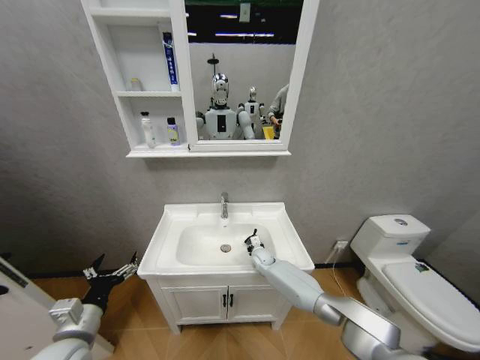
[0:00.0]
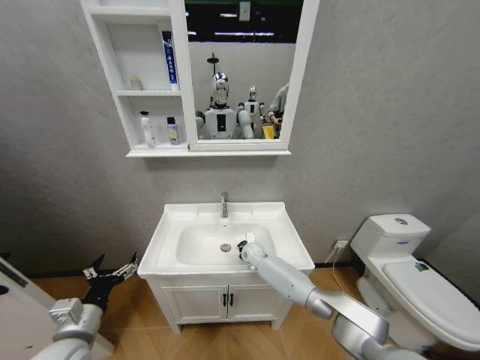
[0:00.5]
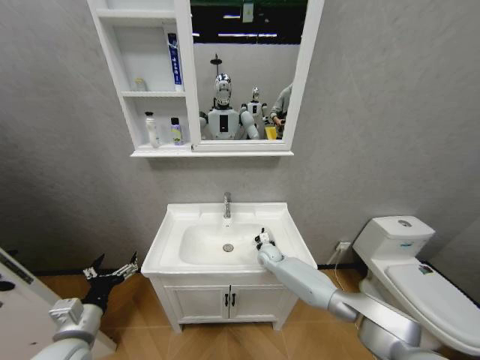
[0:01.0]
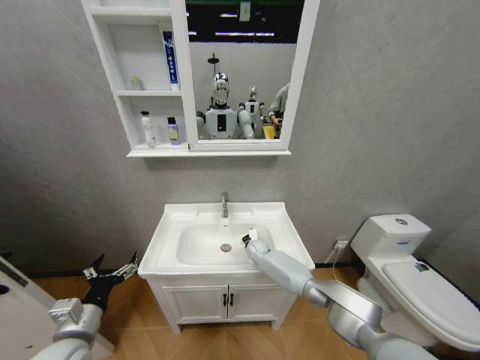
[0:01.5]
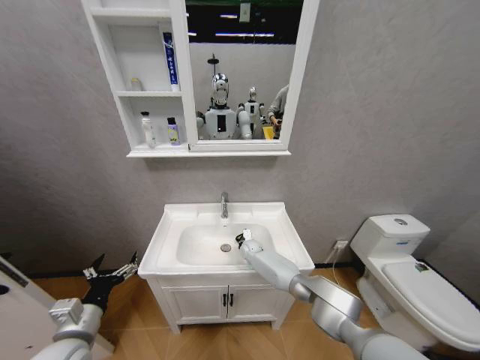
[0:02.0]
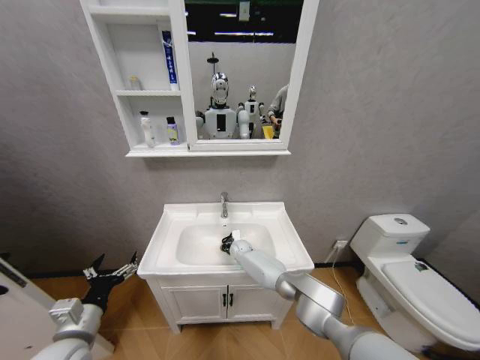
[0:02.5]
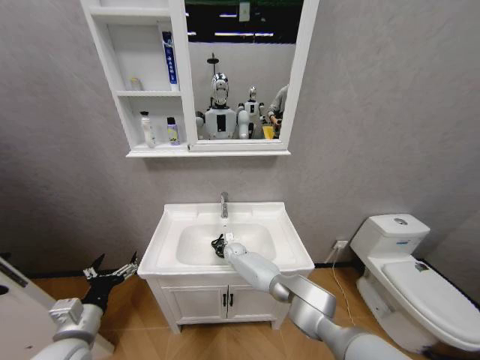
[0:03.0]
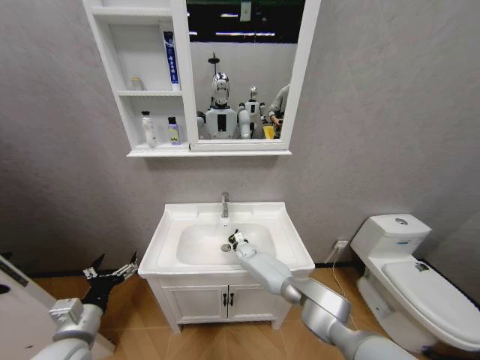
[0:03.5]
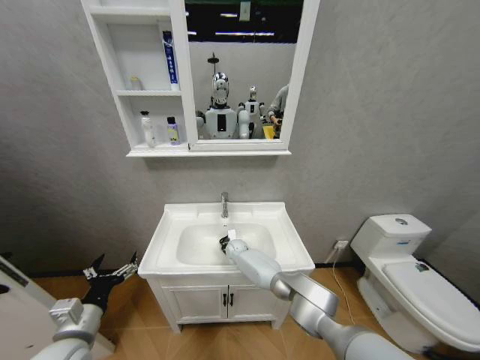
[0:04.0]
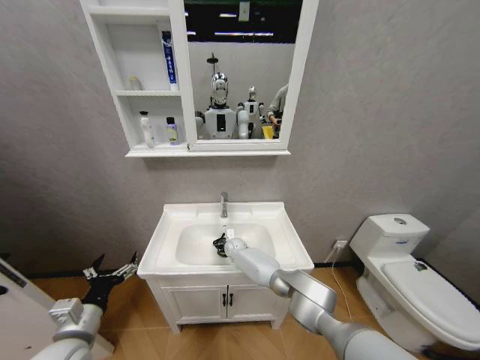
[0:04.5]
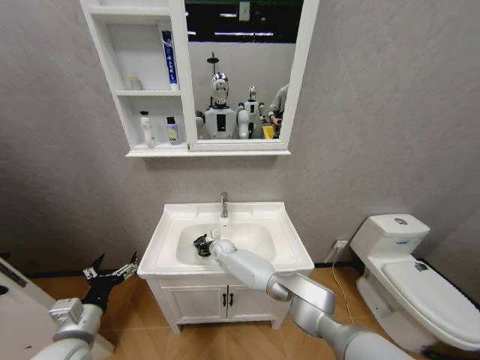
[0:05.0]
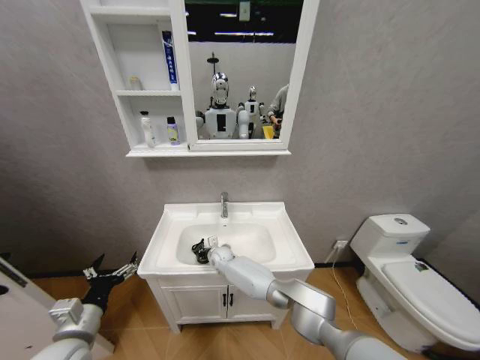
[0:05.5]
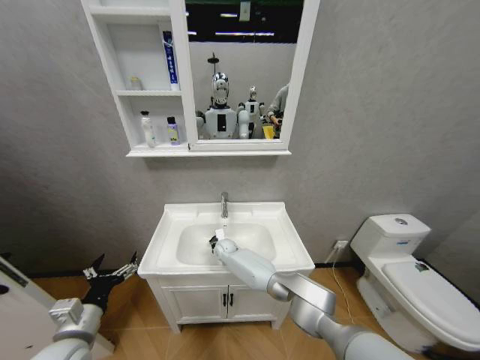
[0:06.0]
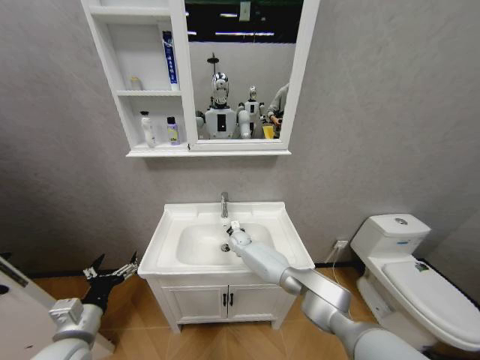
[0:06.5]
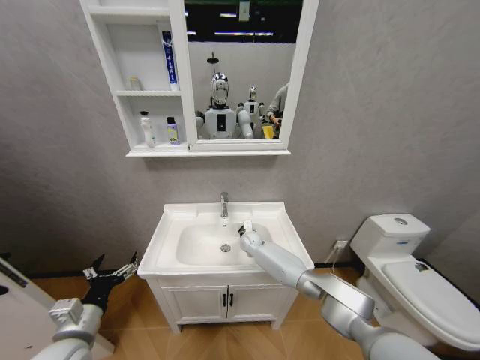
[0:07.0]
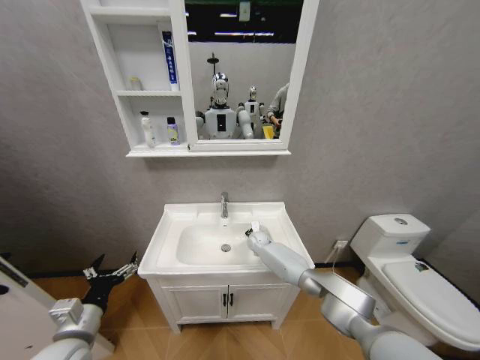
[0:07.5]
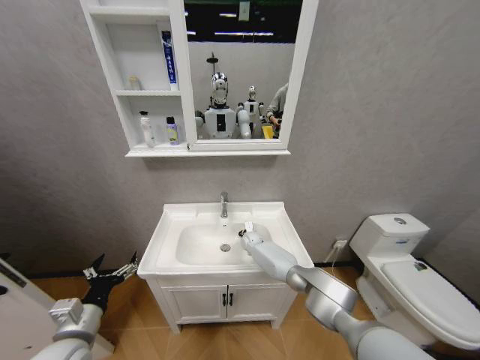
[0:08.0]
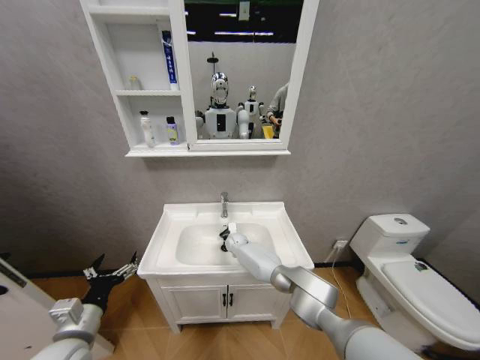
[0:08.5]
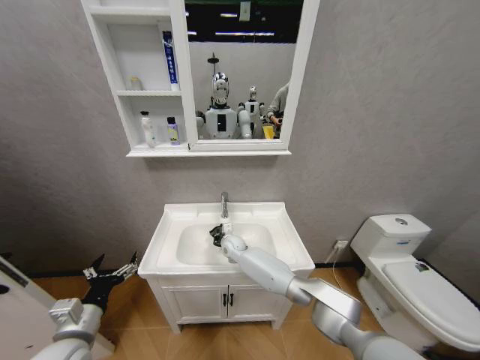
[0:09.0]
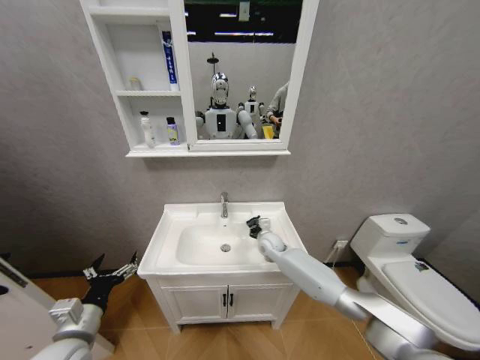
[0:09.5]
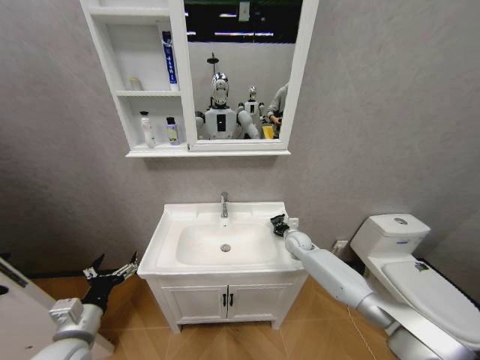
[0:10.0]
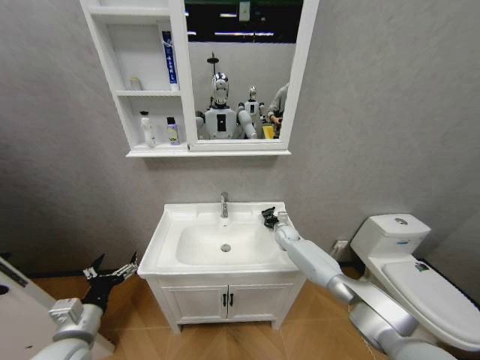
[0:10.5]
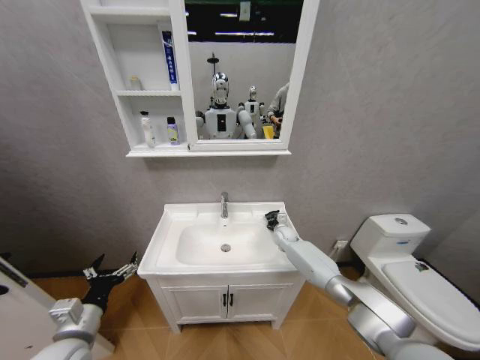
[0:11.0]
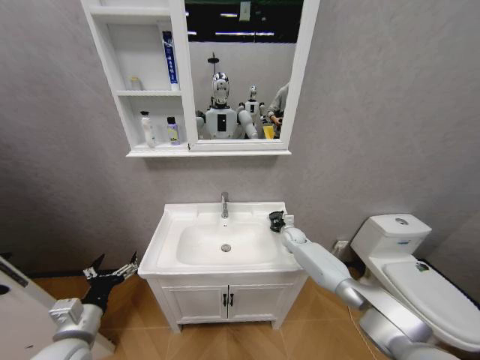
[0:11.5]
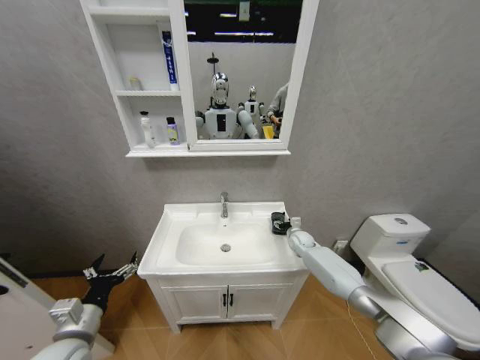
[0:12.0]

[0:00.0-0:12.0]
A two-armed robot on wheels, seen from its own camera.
Task of the whole recording: Move facial cleanser and shampoo from washbasin to cabinet, then wipe washbasin with towel.
0:00.0 to 0:02.0: The right gripper swings left and right, about 5 cm each way, with 2 reversals.
0:02.0 to 0:04.0: The right gripper travels to the left by some 5 cm.
0:04.0 to 0:06.0: The right gripper shifts approximately 5 cm to the left.
0:06.0 to 0:08.0: The right gripper shifts about 10 cm to the right.
0:08.0 to 0:10.0: The right gripper travels to the right by roughly 20 cm.
0:10.0 to 0:12.0: The right gripper opens.

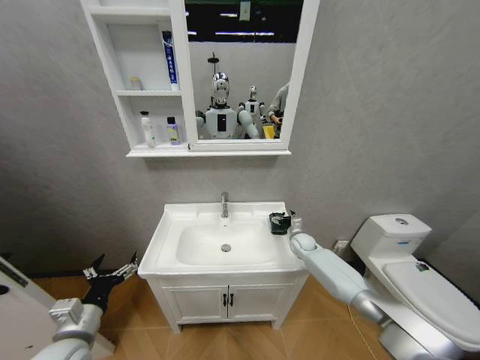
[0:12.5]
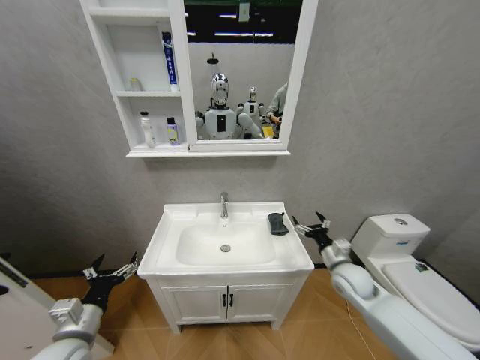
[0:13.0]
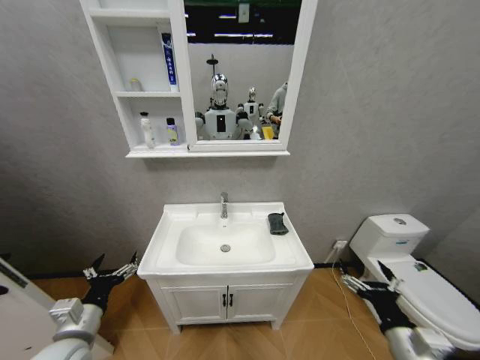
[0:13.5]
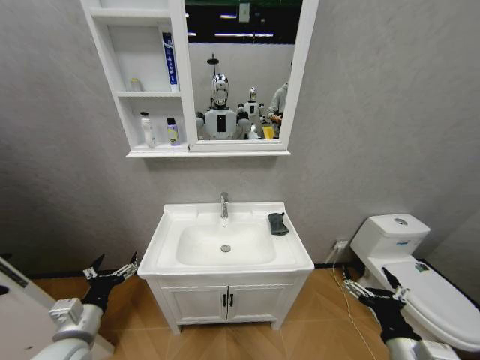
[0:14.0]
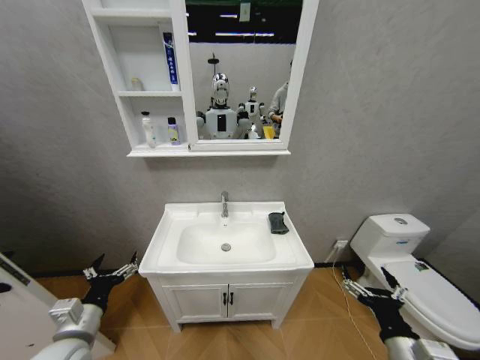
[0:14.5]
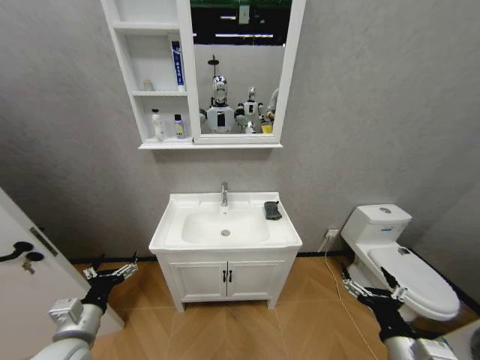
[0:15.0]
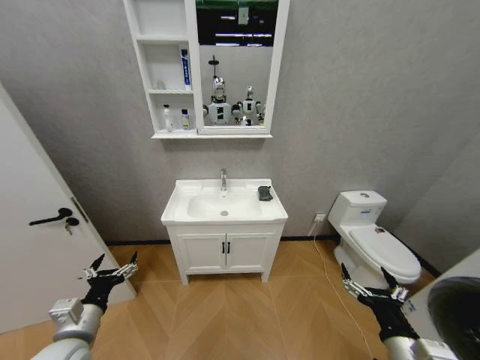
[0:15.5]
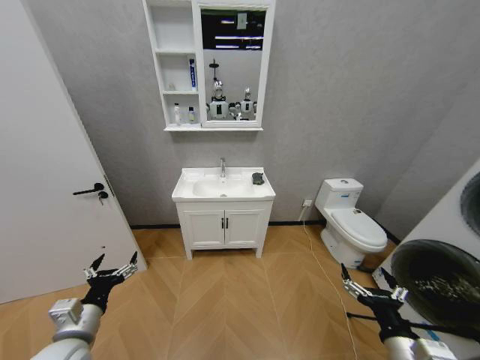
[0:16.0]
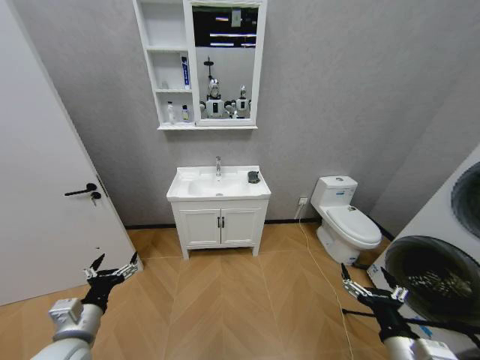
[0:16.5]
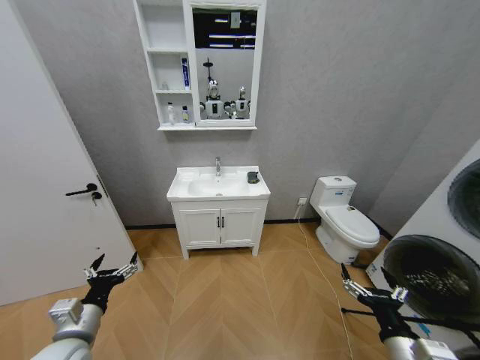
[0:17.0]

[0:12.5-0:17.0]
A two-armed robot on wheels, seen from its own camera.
Task of the whole recording: Move facial cleanser and shampoo from washbasin to cabinet, then wipe washbasin with towel.
0:12.5 to 0:14.5: The right gripper is displaced backward by some 40 cm.

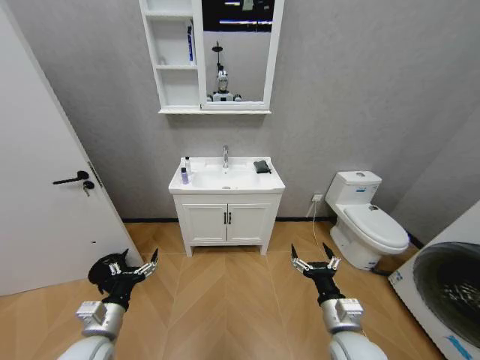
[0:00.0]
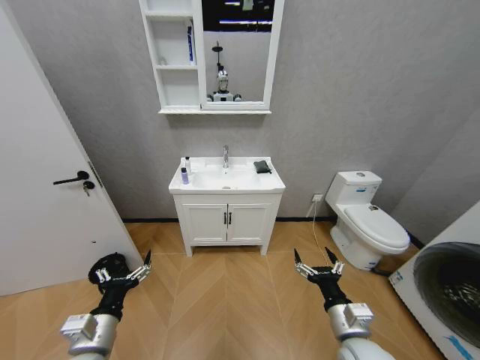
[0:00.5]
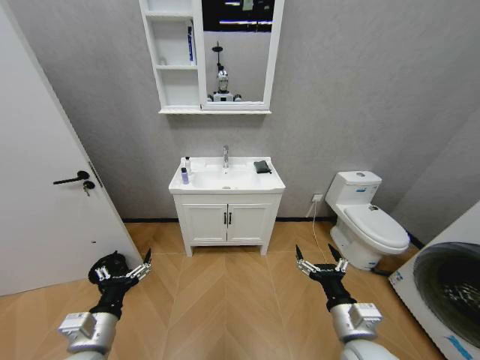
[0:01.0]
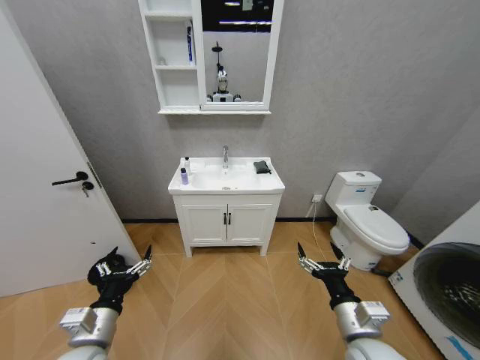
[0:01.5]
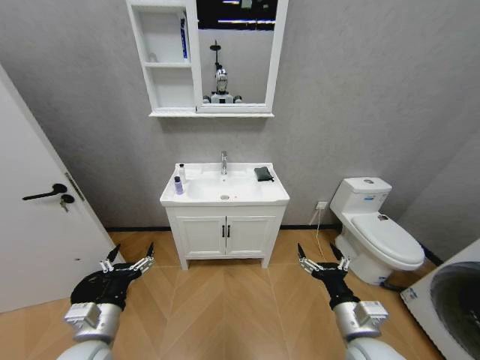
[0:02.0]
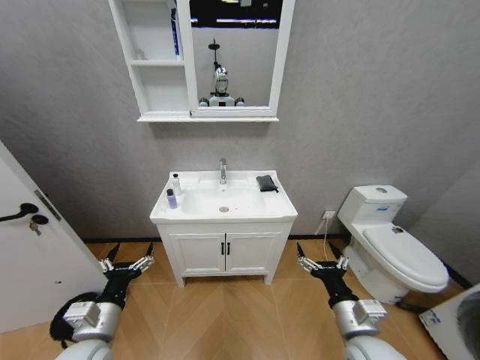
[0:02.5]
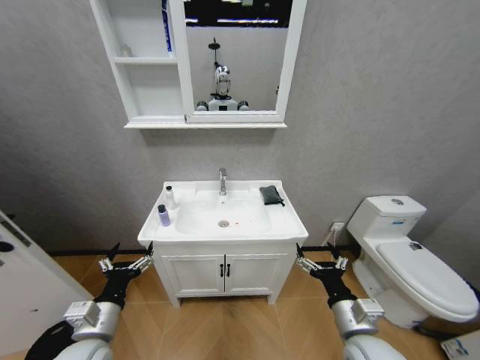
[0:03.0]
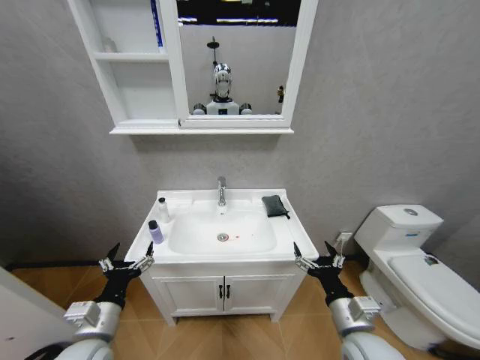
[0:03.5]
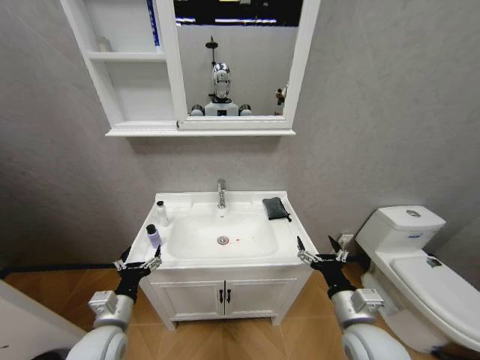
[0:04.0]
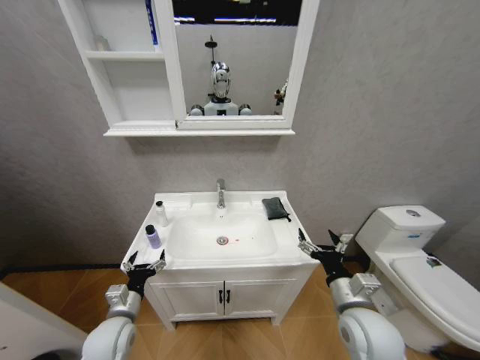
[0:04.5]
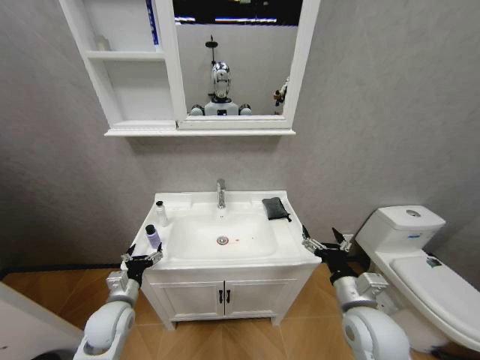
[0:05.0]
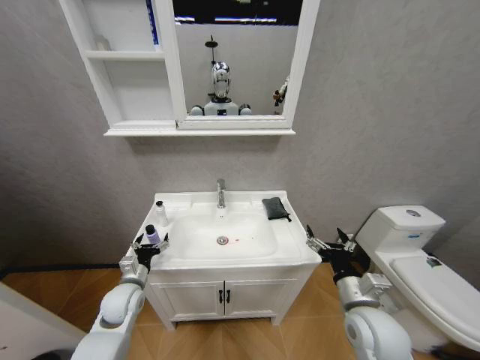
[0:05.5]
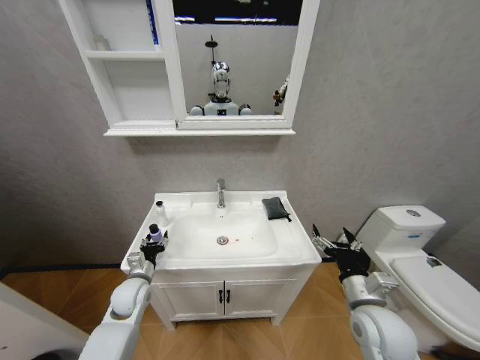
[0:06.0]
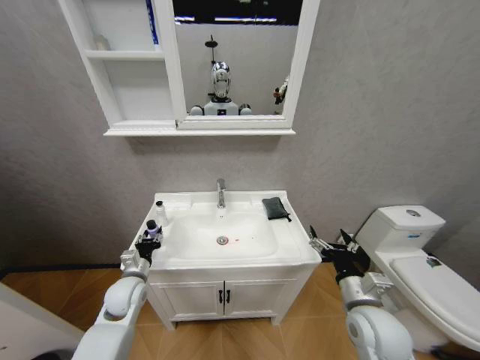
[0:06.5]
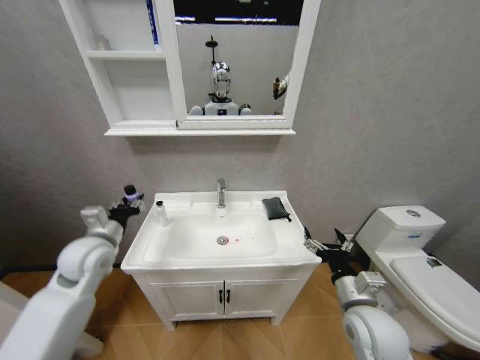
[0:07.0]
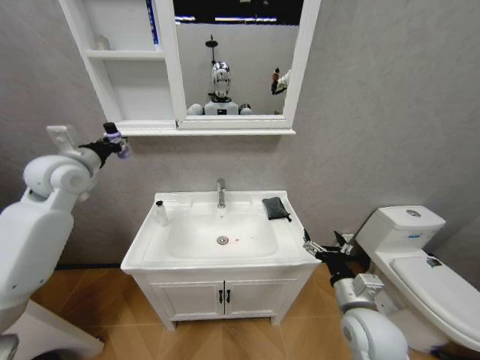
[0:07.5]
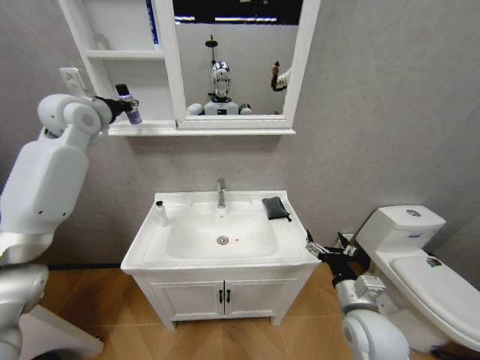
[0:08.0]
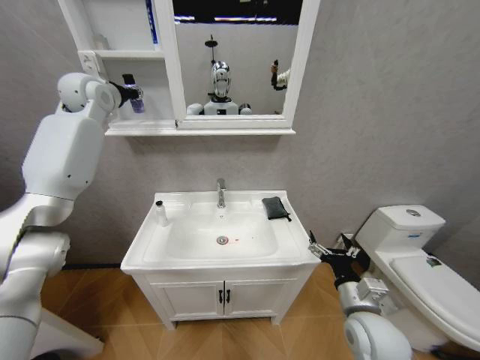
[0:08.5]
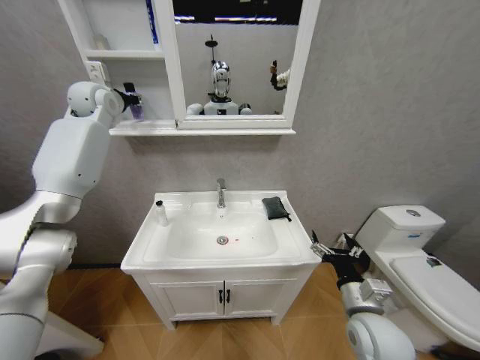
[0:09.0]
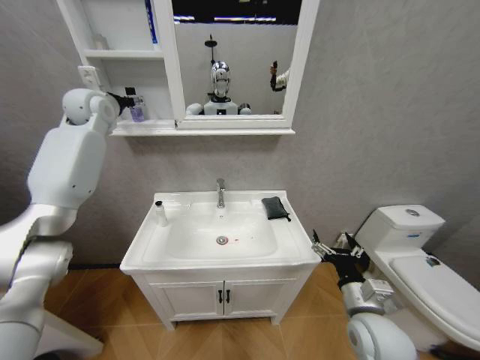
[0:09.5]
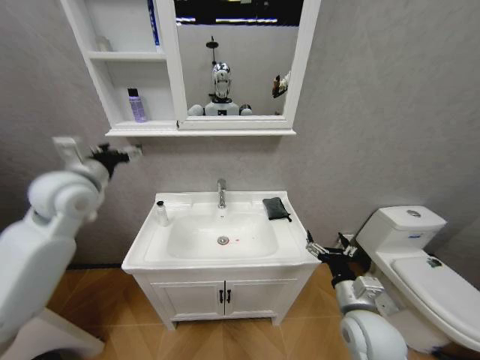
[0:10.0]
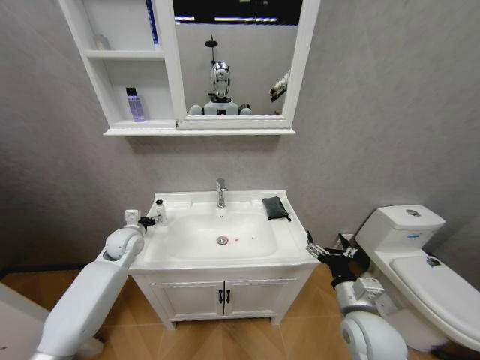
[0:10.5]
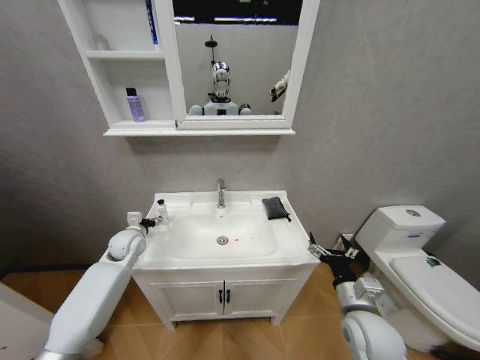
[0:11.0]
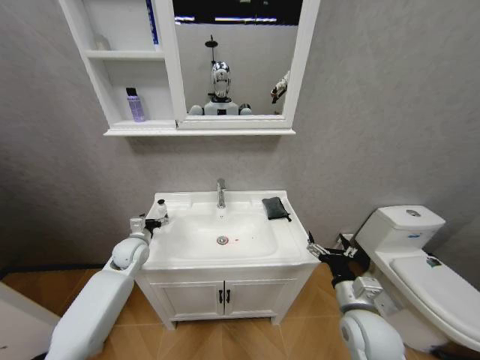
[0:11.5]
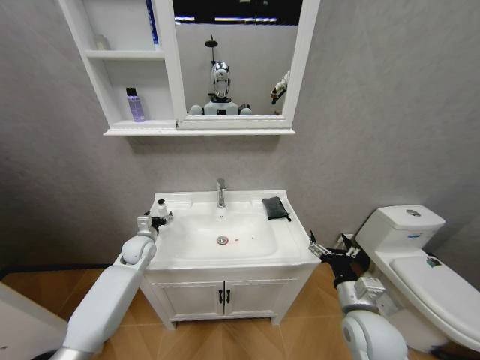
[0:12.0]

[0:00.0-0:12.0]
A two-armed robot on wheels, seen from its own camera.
Task of the whole recording: Move facial cleanser and shampoo from washbasin to cabinet, then wipe washbasin with towel.
0:02.0 to 0:04.0: The left gripper moves approximately 5 cm.
0:04.0 to 0:06.0: The left gripper moves forward, about 15 cm, and closes.
0:06.0 to 0:08.0: The left gripper shifts roughly 40 cm upward.
0:08.0 to 0:10.0: The left gripper shifts approximately 15 cm downward and backward, and opens up.
0:10.0 to 0:12.0: The left gripper moves downward, about 30 cm.
